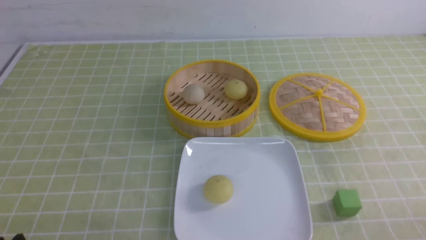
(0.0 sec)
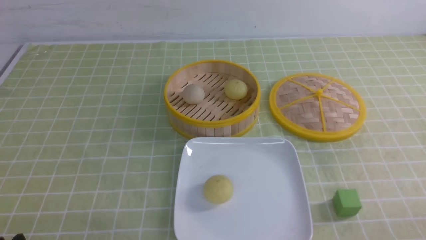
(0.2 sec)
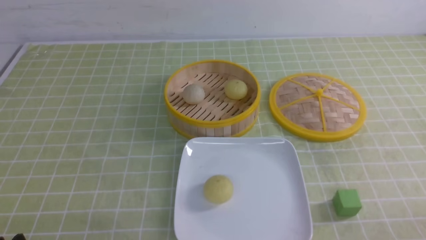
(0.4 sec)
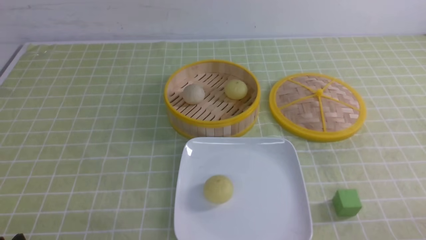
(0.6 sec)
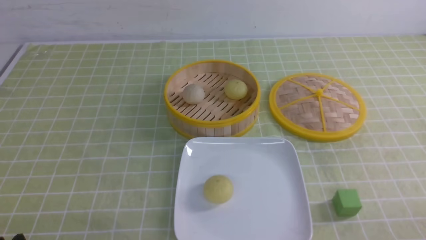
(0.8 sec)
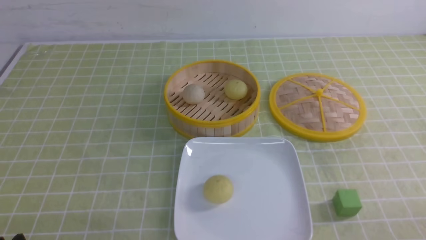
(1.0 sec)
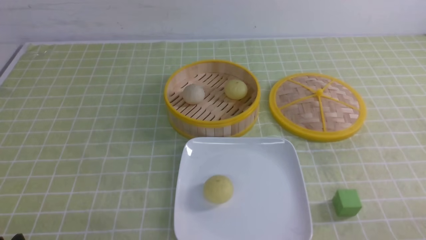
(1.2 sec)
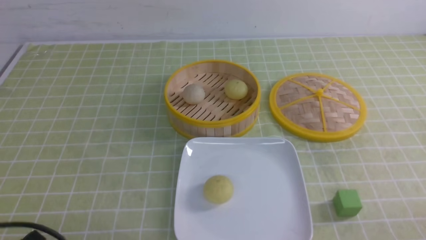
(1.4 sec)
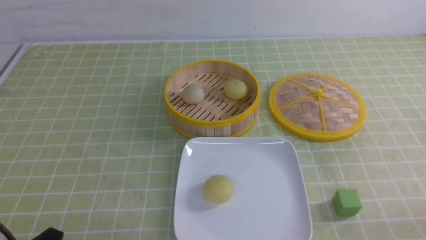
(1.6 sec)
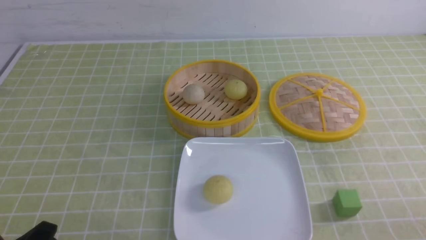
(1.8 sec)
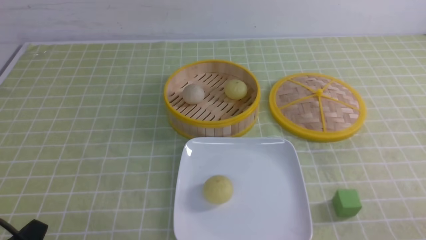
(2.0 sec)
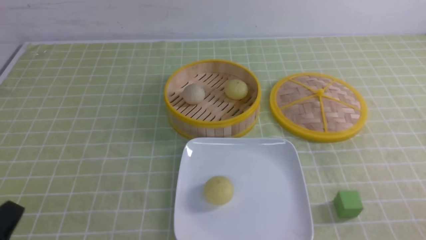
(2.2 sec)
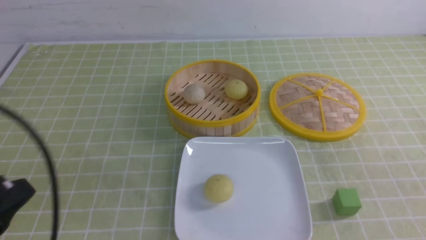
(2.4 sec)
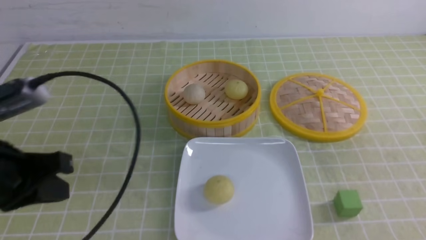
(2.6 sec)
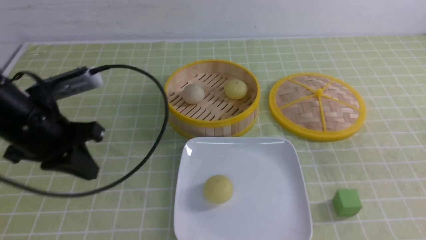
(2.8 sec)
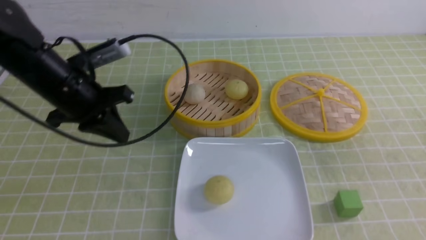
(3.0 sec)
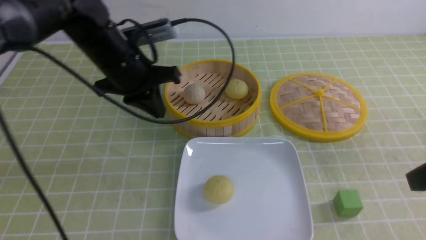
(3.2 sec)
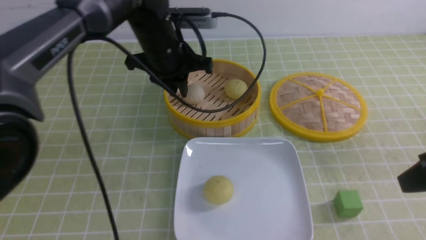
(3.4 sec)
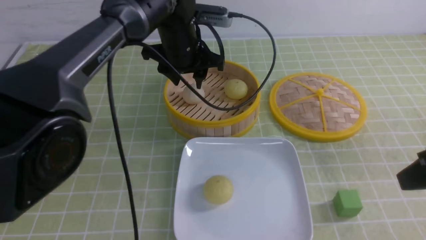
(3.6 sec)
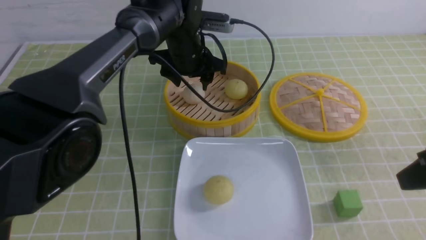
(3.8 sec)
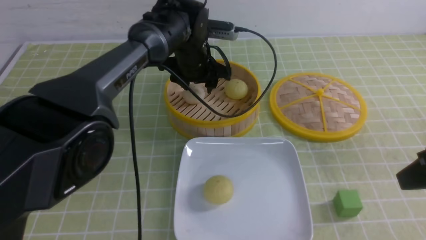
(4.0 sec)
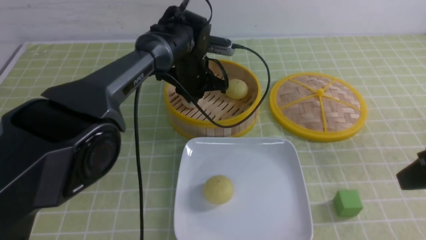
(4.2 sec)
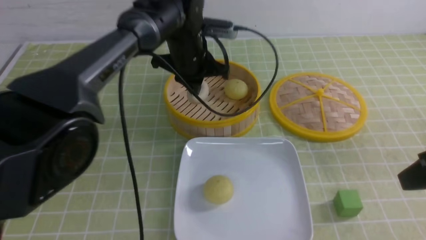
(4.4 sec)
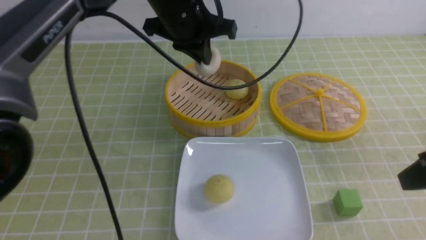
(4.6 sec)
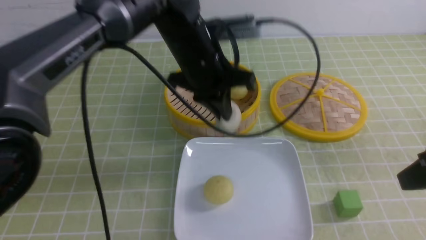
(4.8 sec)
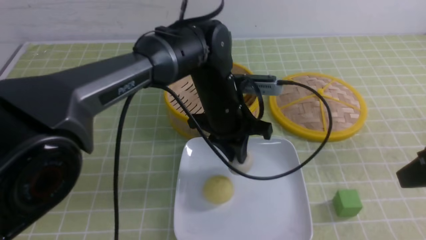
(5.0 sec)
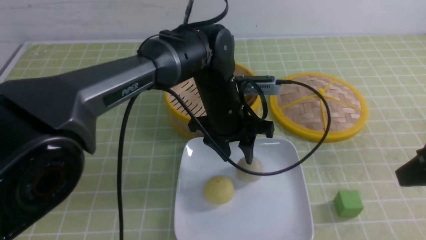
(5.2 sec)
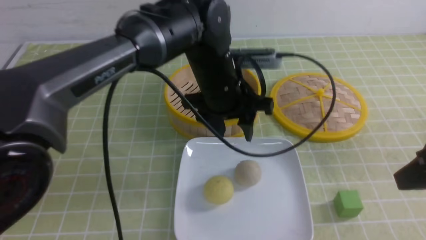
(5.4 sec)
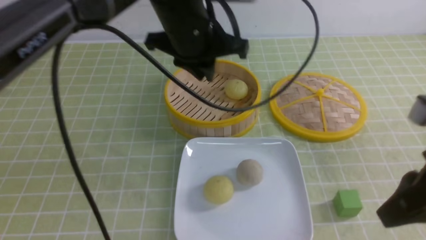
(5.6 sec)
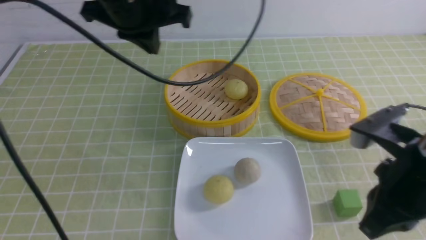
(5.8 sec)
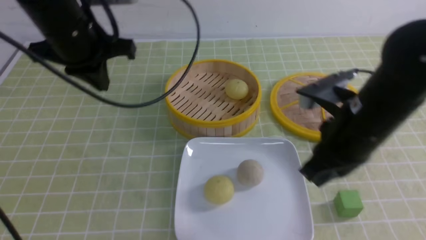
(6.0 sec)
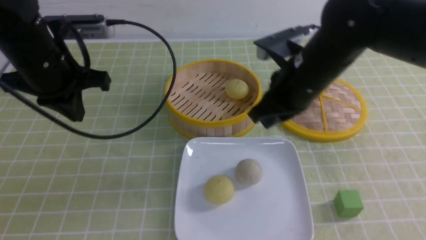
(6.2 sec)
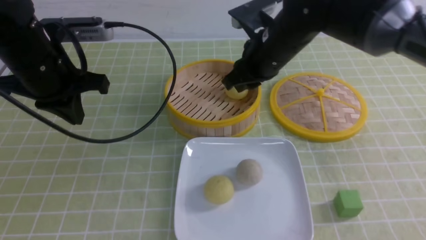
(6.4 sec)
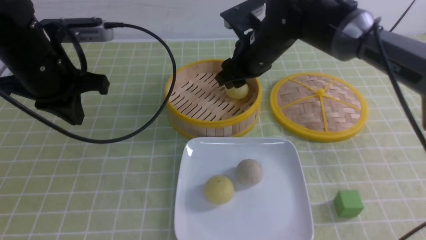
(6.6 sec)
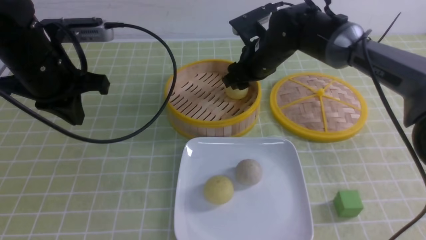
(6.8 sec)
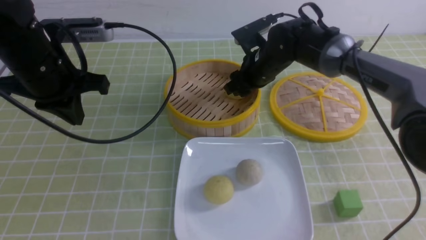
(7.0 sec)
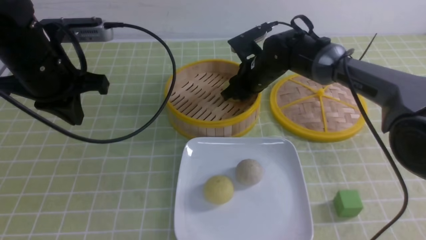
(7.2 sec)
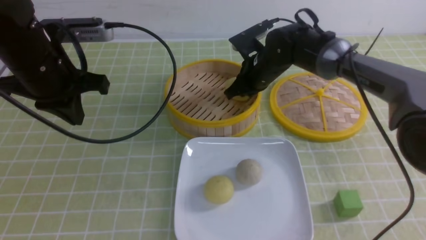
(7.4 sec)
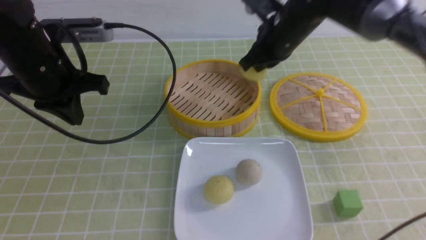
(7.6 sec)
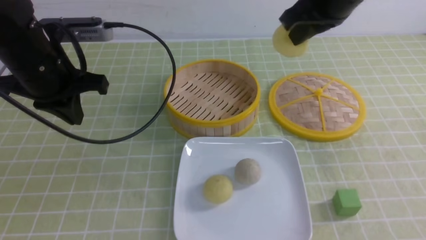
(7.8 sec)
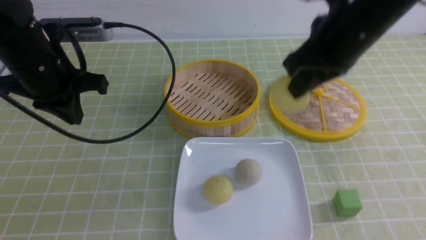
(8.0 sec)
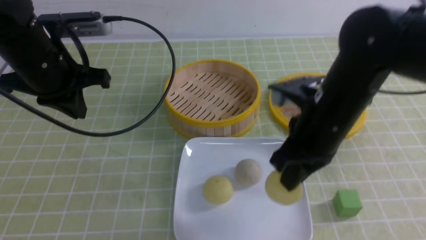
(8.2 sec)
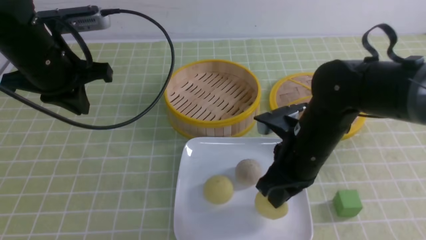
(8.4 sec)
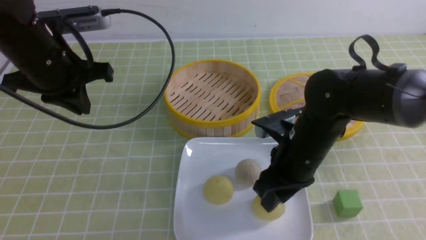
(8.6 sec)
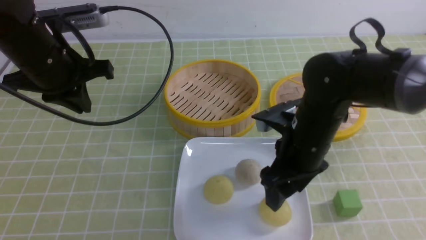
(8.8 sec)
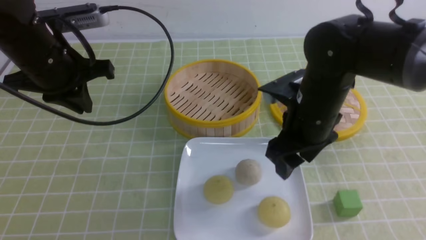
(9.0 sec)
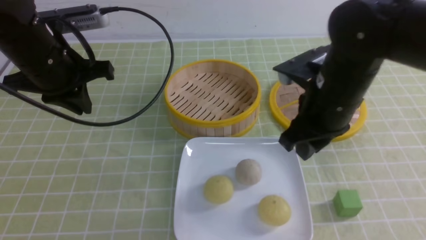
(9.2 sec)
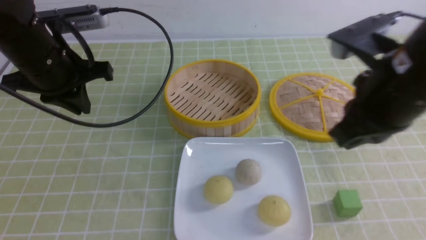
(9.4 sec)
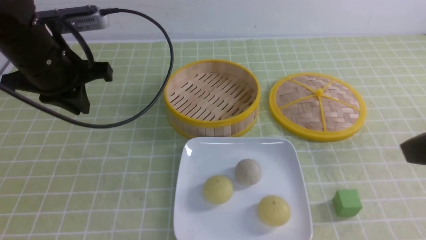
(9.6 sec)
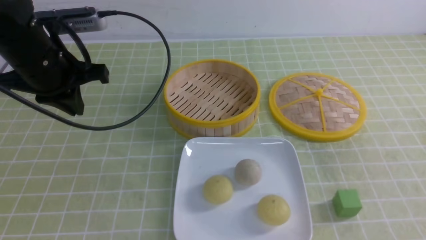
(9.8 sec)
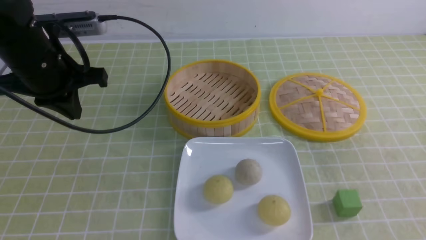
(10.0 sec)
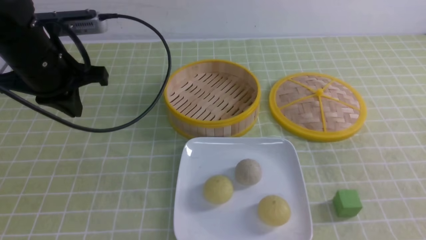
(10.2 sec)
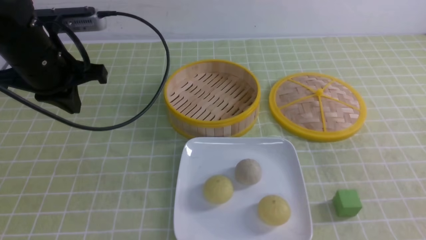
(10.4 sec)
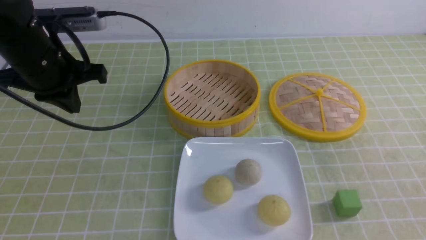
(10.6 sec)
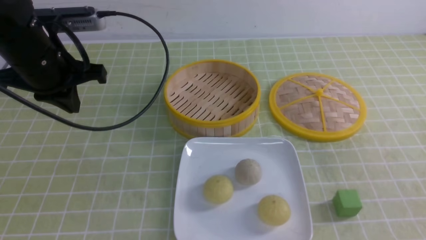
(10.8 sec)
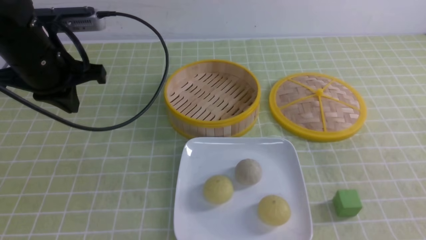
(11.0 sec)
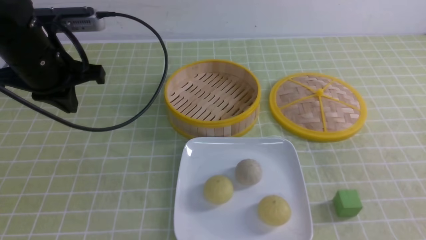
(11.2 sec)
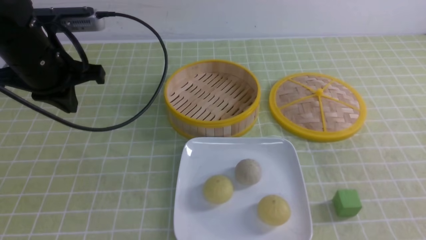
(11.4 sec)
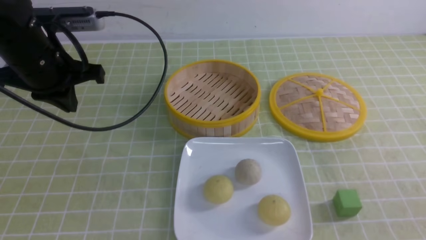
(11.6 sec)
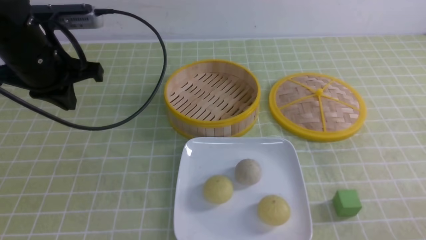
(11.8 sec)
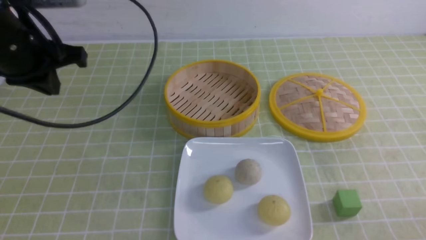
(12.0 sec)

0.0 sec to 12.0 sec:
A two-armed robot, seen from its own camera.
Step, 0.0 sec to 4.2 sec: use the left arm to grab the steamed stuffed bun that is closest to it.
Step, 4.4 sec to 5.0 sec: use the left arm to put the steamed stuffed bun into the plate.
Step, 5.2 sec to 7.2 sec: use the right arm to grab the steamed stuffed bun that is closest to it.
Step, 7.6 sec to 8.6 sec: use the right arm to put the steamed stuffed bun into the plate.
1.6 sec to 3.0 sec: The right gripper heads upward and forward, covering some 20 cm, and closes its fingers, while the left gripper is displaced forward and upward by about 30 cm, and closes up.
3.0 sec to 4.4 sec: The left gripper shifts approximately 20 cm to the right and forward, and opens, then closes again.
4.4 sec to 6.0 sec: The right gripper shifts approximately 15 cm to the left and forward; the left gripper travels to the left, backward and upward by about 20 cm, and opens, then closes once more.
6.0 sec to 7.6 sec: The right gripper heads forward, covering about 15 cm, and opens, then closes once more; the left gripper moves approximately 5 cm.
7.6 sec to 9.0 sec: The right gripper swings up and down, some 15 cm each way, with 2 reversals, and opens.
9.0 sec to 10.4 sec: The right gripper shifts roughly 25 cm backward and to the right, and closes.
10.4 sec to 12.0 sec: The right gripper heads downward, covering some 10 cm, while the left gripper moves upward, approximately 5 cm.

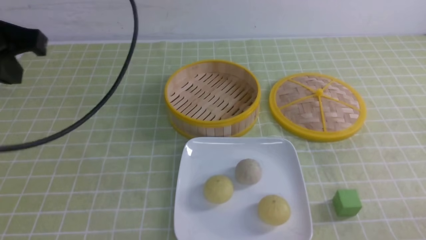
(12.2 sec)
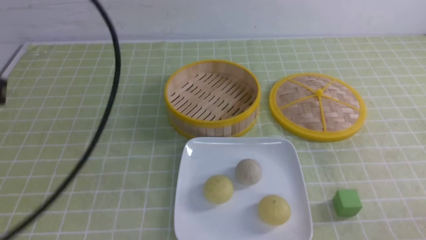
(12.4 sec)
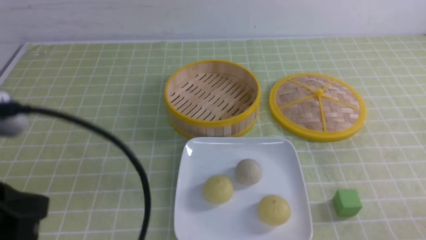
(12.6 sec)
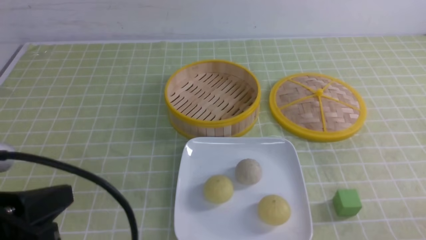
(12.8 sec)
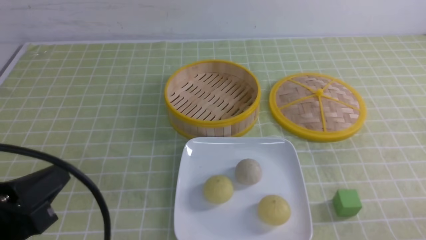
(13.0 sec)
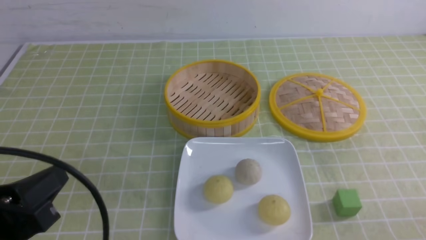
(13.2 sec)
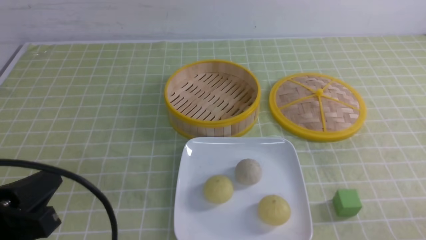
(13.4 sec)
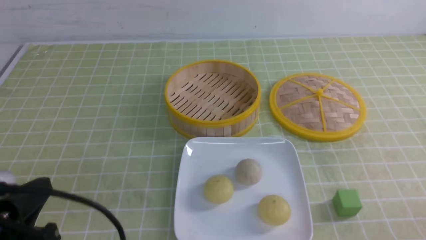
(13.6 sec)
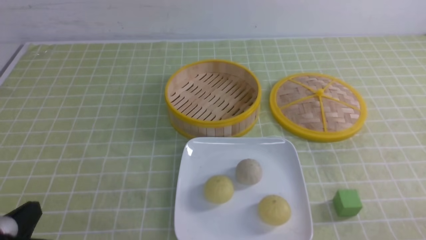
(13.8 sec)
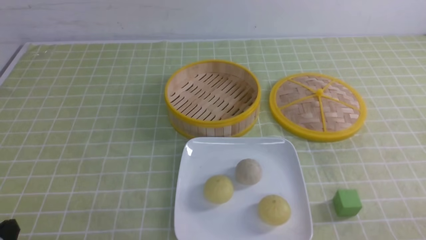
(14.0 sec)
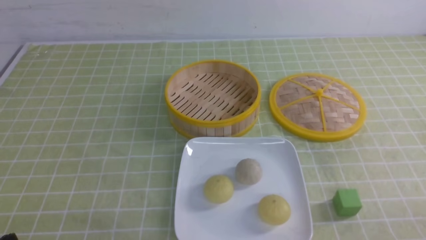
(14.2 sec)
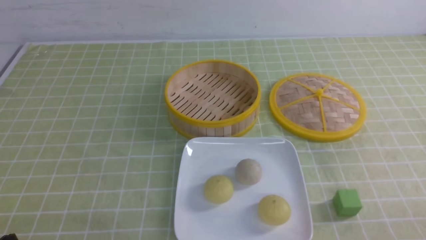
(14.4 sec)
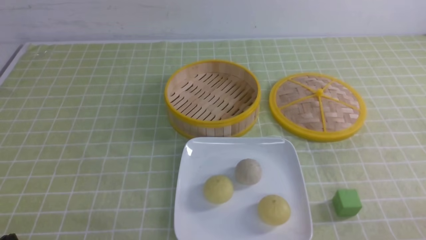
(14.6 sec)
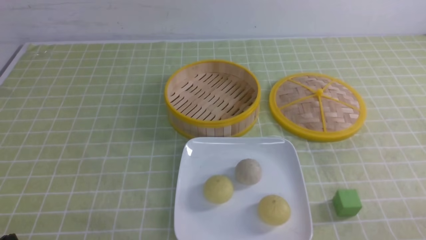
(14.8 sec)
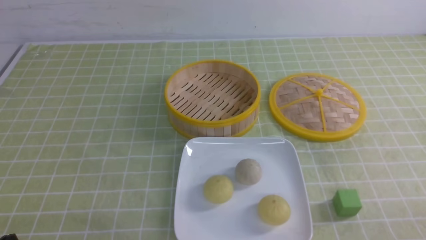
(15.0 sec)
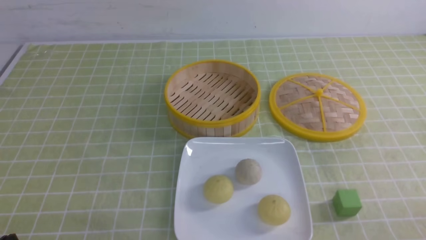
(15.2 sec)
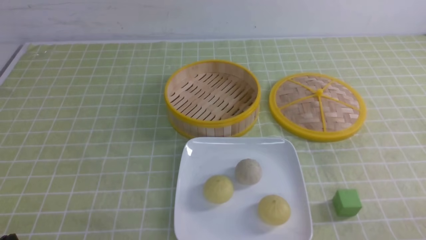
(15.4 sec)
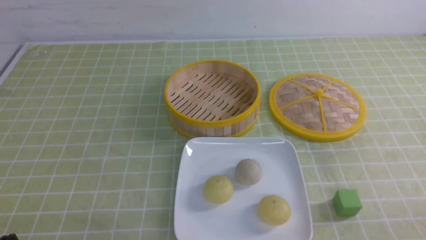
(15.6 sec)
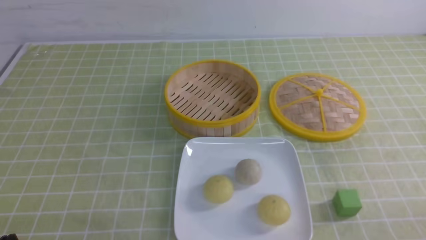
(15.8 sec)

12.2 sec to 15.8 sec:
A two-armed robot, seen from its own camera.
12.2 sec to 14.0 sec: The left gripper goes about 25 cm downward and backward.
